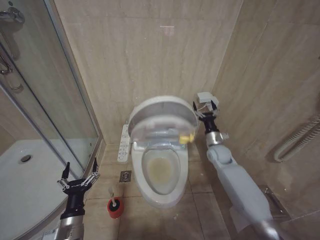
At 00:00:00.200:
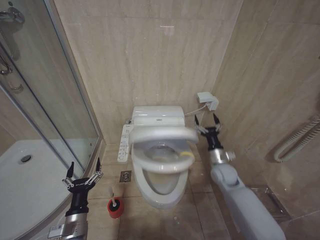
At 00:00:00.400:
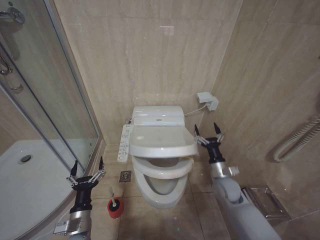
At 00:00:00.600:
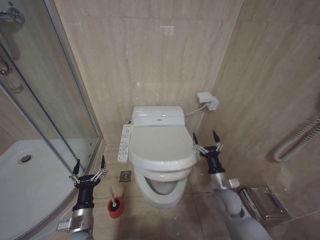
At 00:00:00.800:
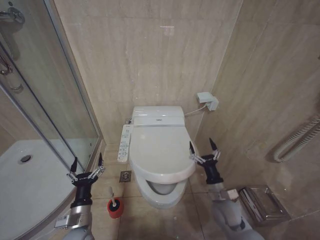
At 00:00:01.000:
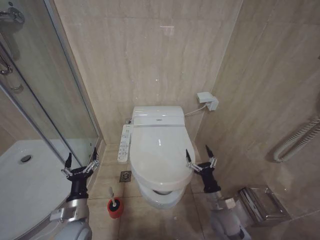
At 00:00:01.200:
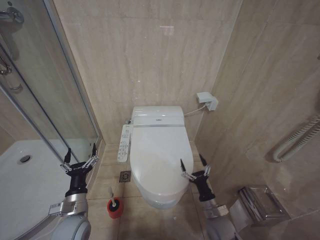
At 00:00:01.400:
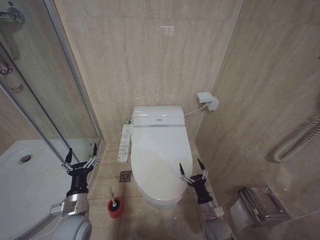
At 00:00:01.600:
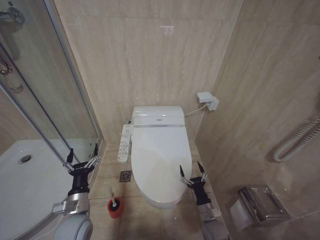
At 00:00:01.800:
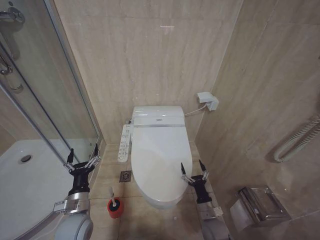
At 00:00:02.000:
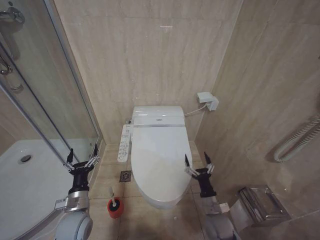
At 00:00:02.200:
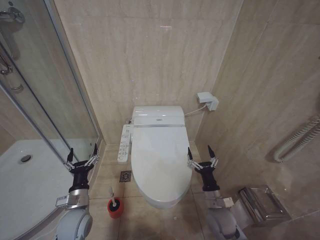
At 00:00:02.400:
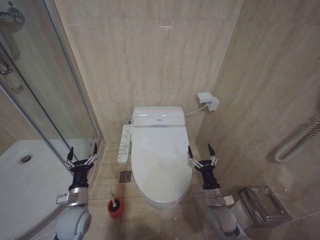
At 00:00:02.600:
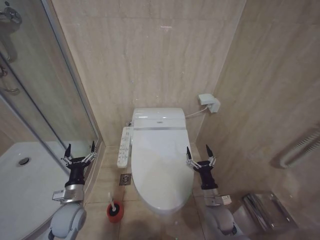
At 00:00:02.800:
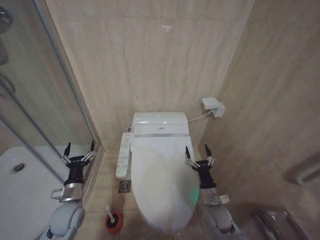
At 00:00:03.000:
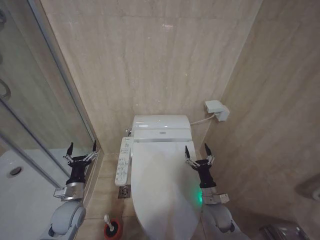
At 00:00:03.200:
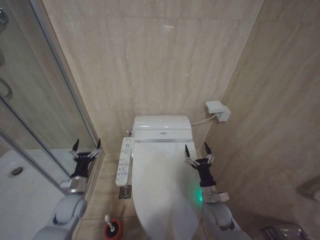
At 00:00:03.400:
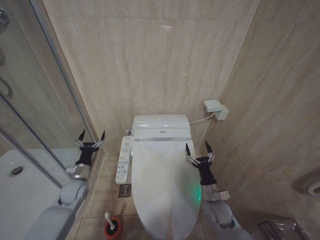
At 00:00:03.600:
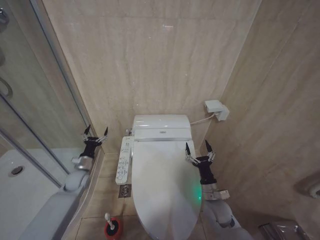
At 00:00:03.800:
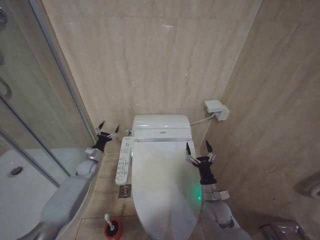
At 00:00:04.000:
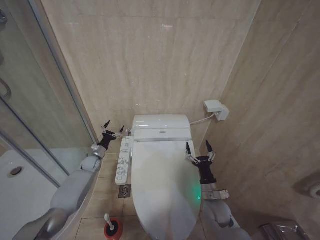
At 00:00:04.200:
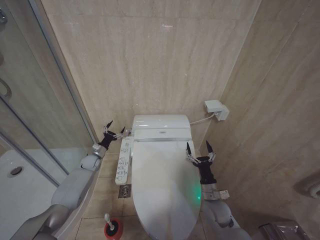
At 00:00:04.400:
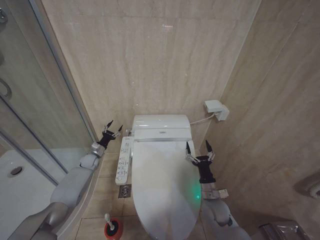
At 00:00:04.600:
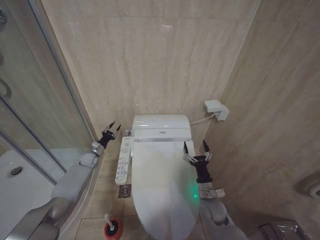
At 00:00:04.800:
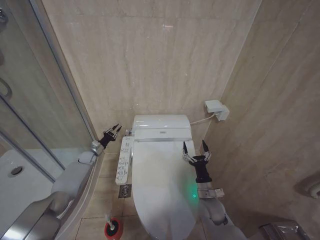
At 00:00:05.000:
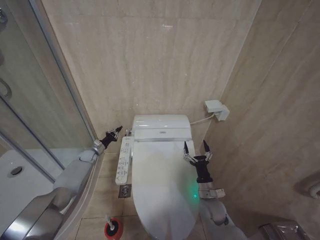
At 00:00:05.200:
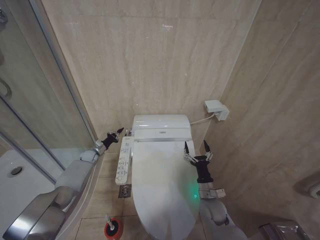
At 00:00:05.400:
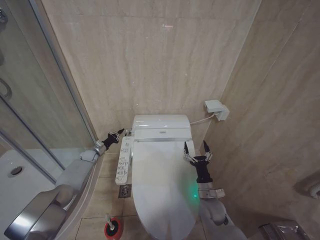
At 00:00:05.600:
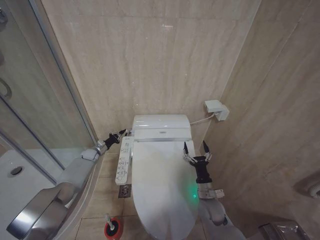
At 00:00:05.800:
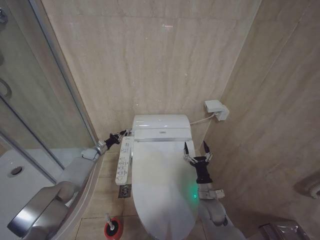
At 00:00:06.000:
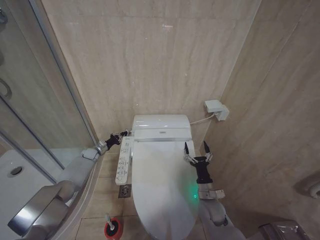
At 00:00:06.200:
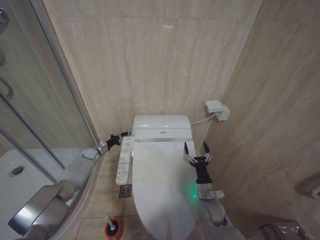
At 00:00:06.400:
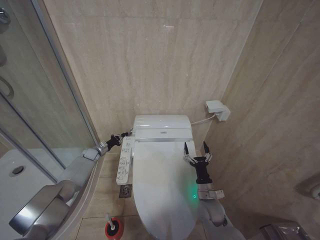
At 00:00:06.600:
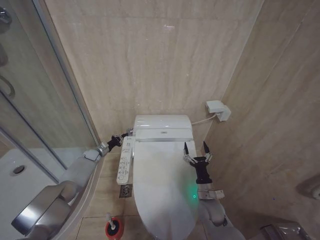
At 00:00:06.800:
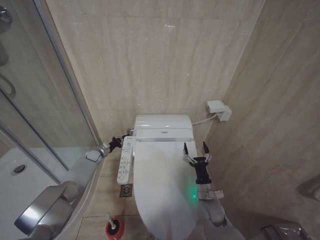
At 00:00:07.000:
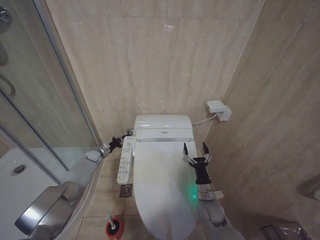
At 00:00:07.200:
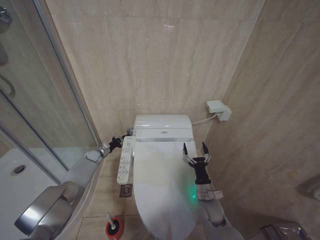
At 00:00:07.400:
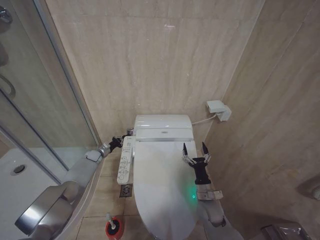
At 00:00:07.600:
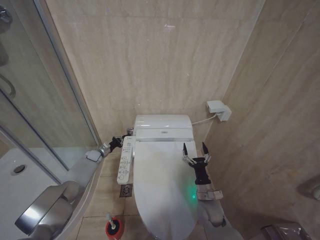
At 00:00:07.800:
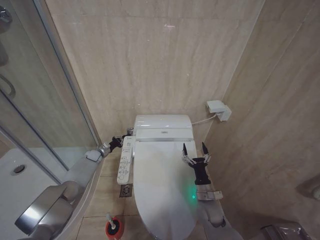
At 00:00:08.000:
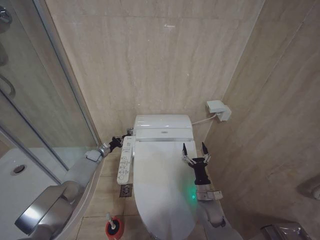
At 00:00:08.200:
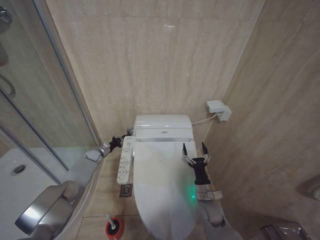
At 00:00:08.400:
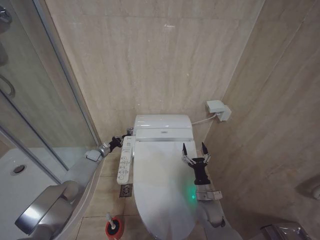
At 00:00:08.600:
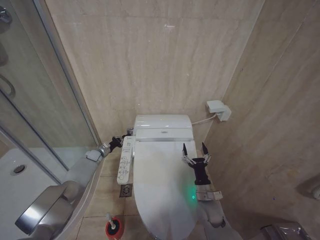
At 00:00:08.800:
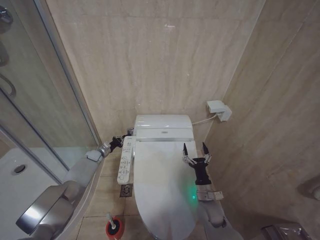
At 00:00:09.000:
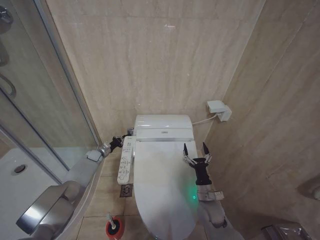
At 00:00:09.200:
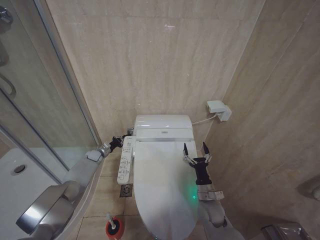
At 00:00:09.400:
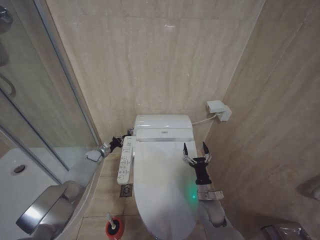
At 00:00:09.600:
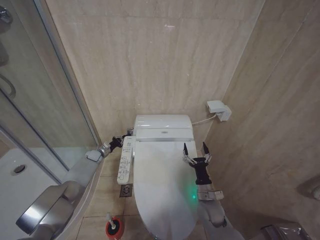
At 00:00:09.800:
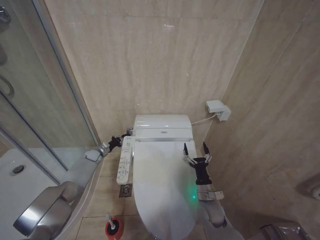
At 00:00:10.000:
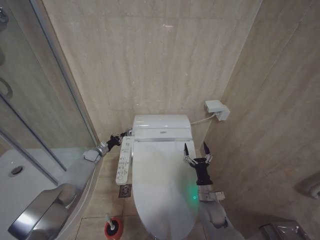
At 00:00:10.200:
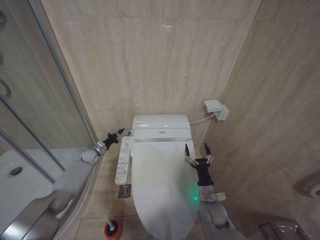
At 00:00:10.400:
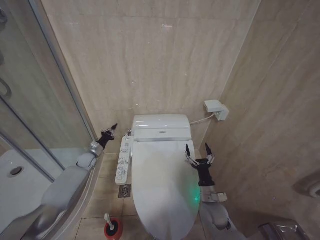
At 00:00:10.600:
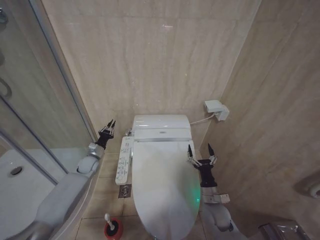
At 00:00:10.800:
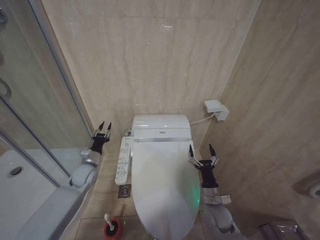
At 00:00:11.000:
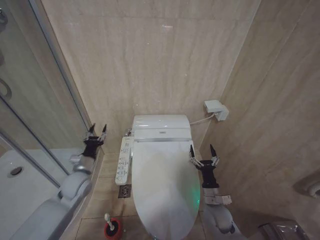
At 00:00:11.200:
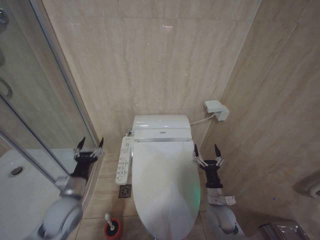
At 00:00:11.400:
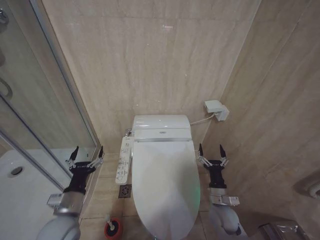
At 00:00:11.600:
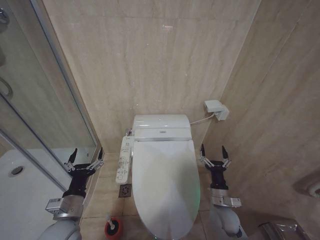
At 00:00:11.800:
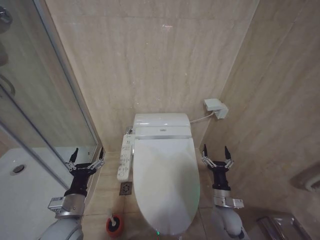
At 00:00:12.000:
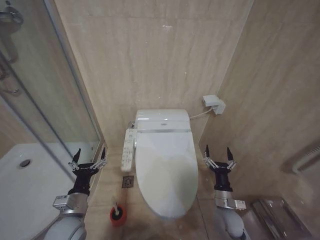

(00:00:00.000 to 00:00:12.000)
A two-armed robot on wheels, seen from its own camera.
Task of the whole recording: Open the toilet lid, clean the toilet bowl with a toilet brush, close the toilet lid, and flush.
00:00:00.000 - 00:00:01.600: The right gripper travels backward and downward by some 30 cm. The left gripper is displaced forward by approximately 5 cm.
00:00:01.600 - 00:00:03.000: The right gripper is displaced upward by approximately 10 cm, while the left gripper changes place by approximately 5 cm.
00:00:03.000 - 00:00:04.400: The left gripper is displaced forward by about 25 cm.
00:00:04.400 - 00:00:06.000: The left gripper closes.
00:00:06.000 - 00:00:07.600: The grippers move only a little.
00:00:07.600 - 00:00:09.000: The two grippers keep their place.
00:00:09.000 - 00:00:10.400: The grippers make only small movements.
00:00:10.400 - 00:00:12.000: The left gripper heads backward, covering approximately 35 cm, and opens up.

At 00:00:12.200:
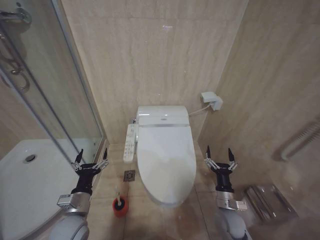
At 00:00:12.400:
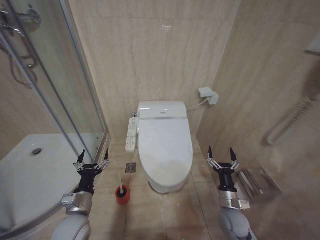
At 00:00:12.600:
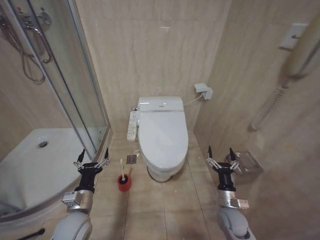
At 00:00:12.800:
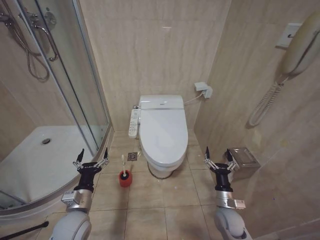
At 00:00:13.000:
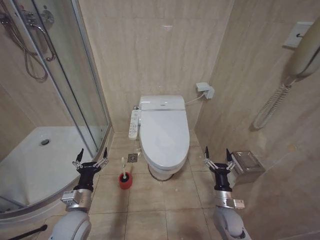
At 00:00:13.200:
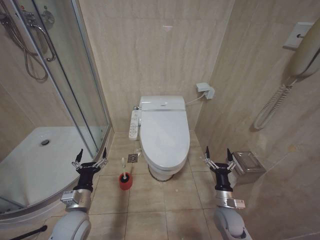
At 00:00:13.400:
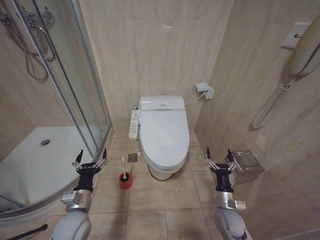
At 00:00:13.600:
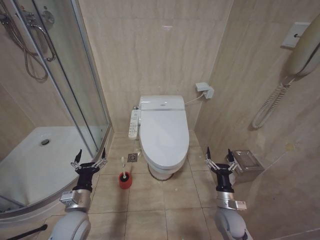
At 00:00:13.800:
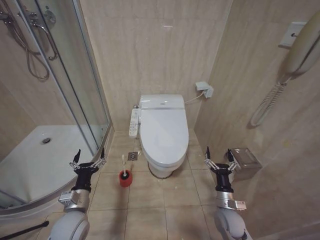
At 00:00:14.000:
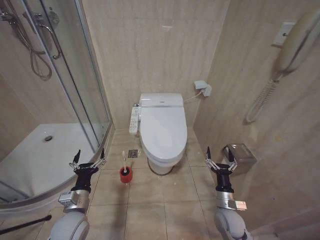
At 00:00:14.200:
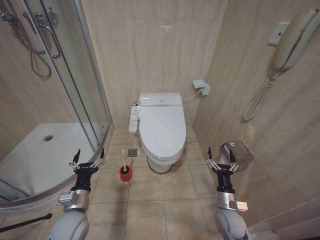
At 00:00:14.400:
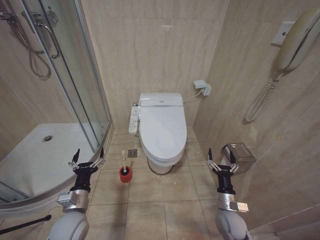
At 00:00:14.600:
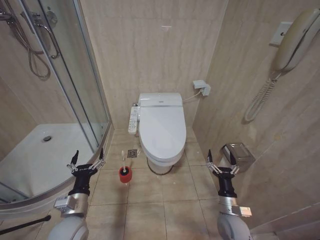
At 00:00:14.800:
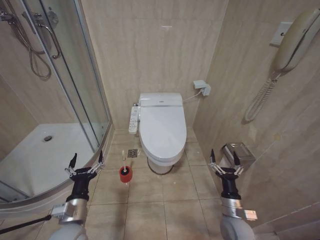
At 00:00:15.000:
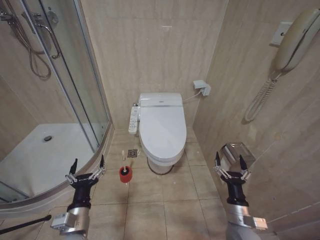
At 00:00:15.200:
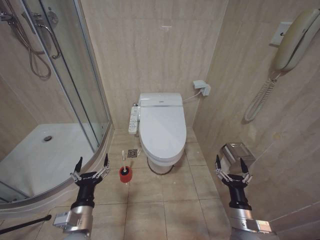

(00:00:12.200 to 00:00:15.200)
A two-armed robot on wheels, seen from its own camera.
Task of the whole recording: Open the toilet lid, clean the toilet bowl with a toilet brush, close the toilet lid, and flush.
00:00:13.800 - 00:00:15.200: The two grippers go some 5 cm backward.
